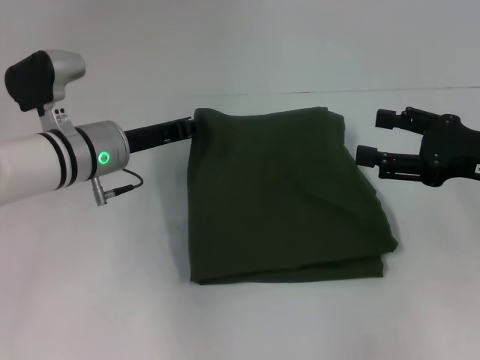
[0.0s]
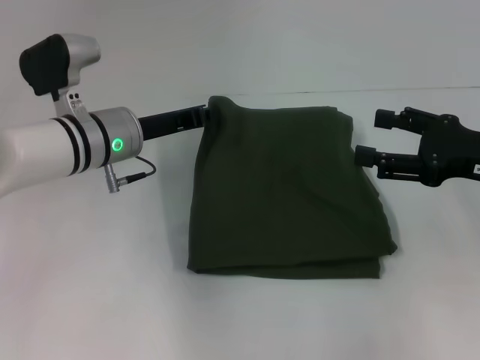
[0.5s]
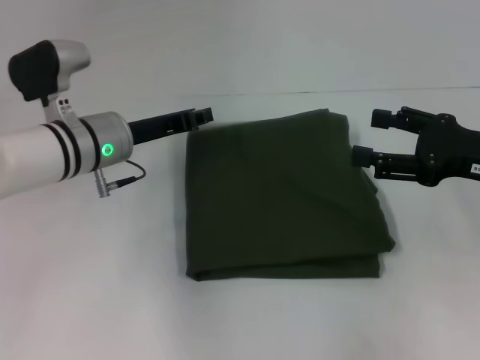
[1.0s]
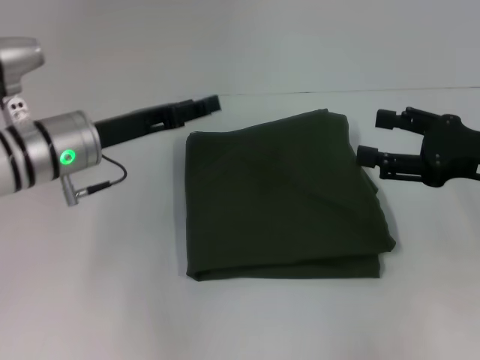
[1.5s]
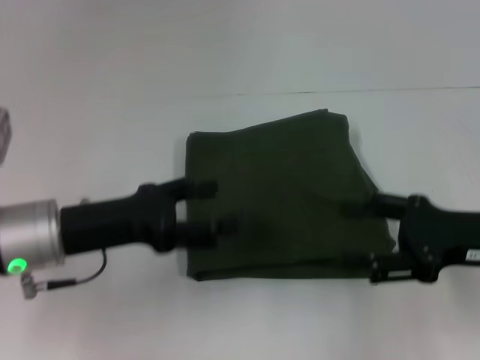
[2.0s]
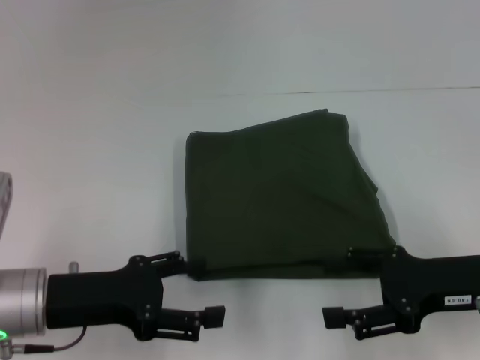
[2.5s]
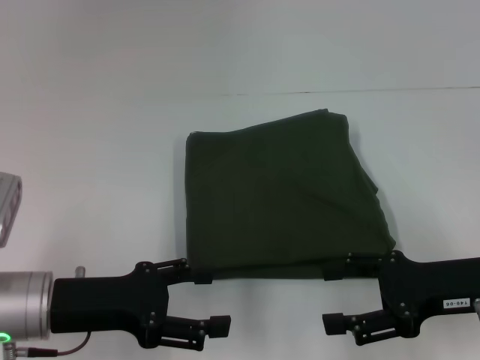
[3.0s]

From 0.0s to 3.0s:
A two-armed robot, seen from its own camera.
From 0.0s to 1.5s: The left gripper opens up.
From 1.5s to 3.0s: The left gripper goes some 10 cm backward, and opens its fingers; the right gripper travels downward by roughly 5 cm.

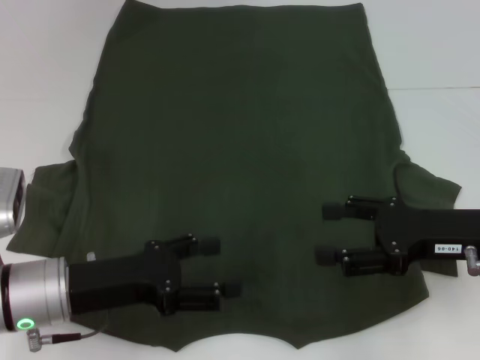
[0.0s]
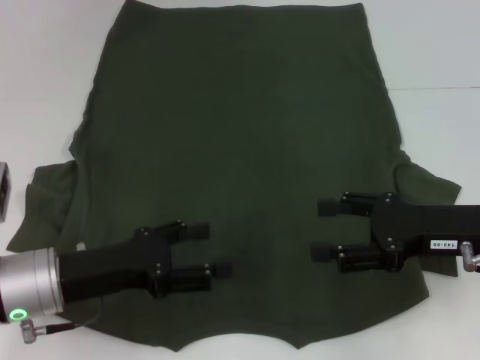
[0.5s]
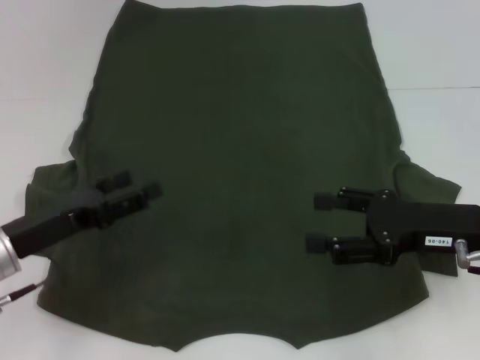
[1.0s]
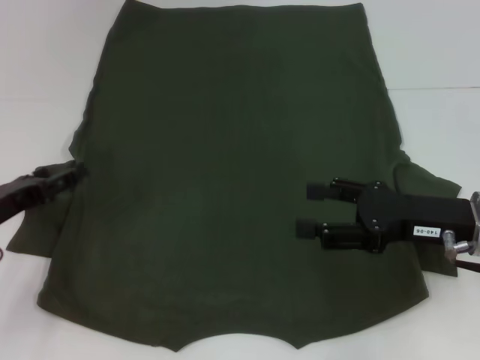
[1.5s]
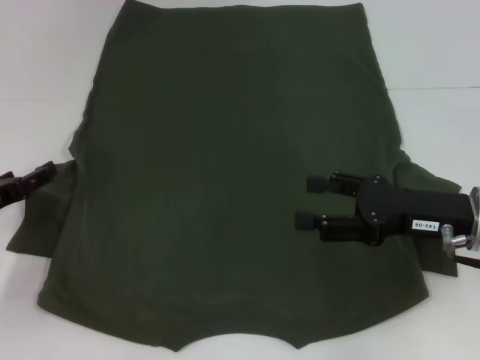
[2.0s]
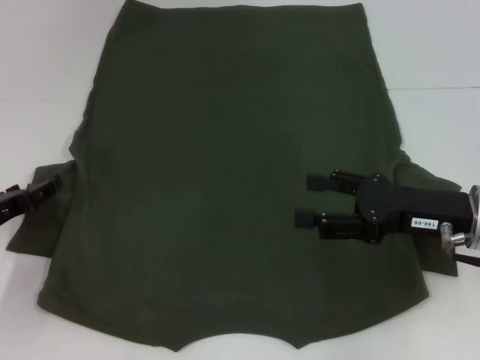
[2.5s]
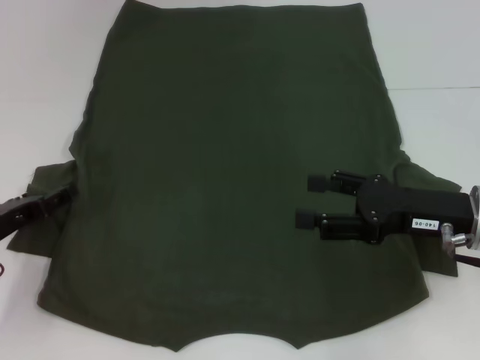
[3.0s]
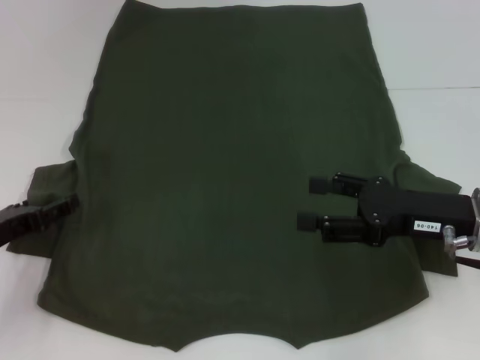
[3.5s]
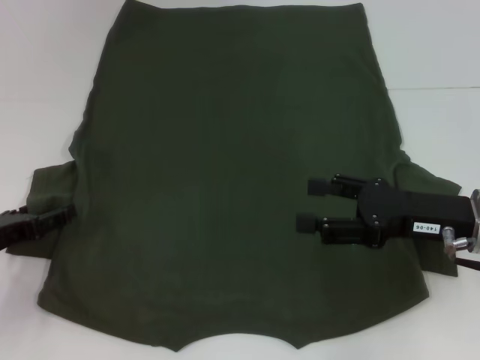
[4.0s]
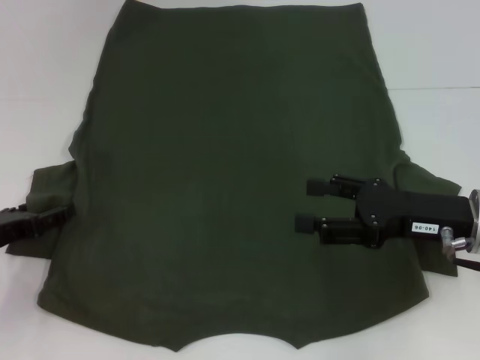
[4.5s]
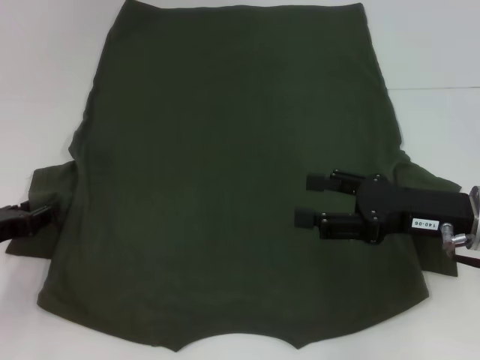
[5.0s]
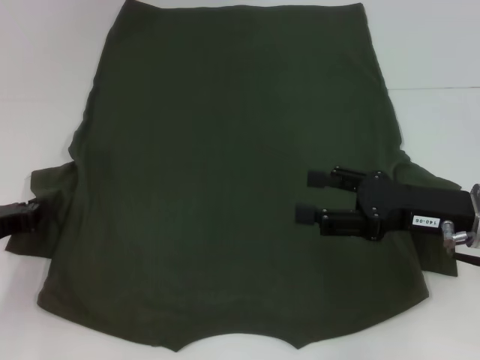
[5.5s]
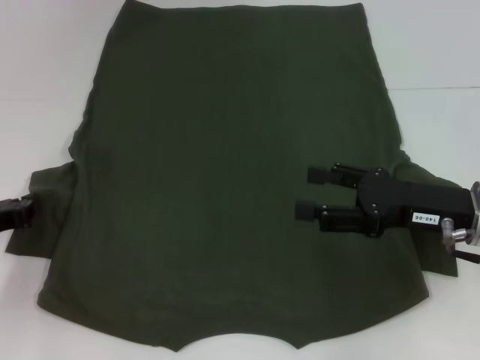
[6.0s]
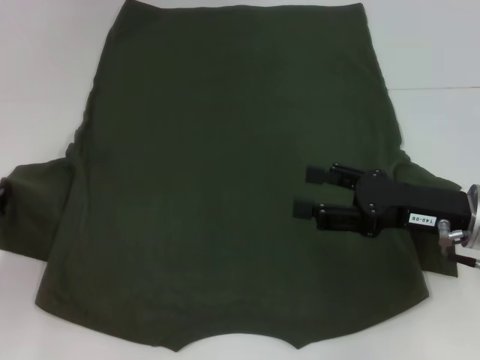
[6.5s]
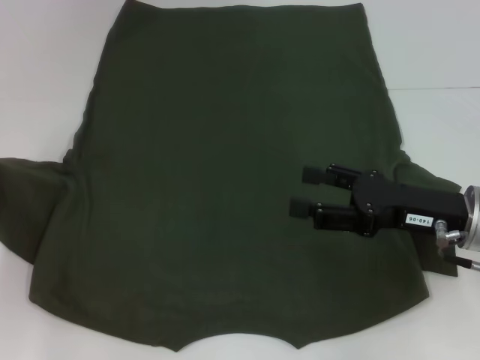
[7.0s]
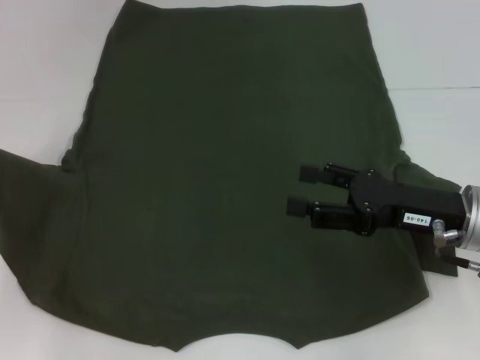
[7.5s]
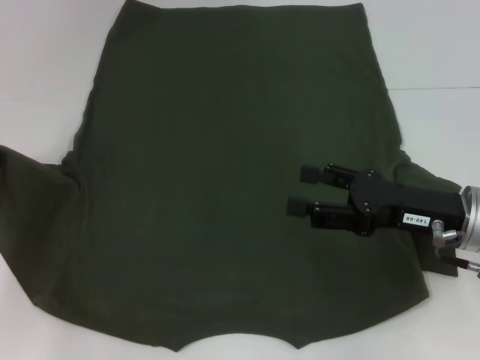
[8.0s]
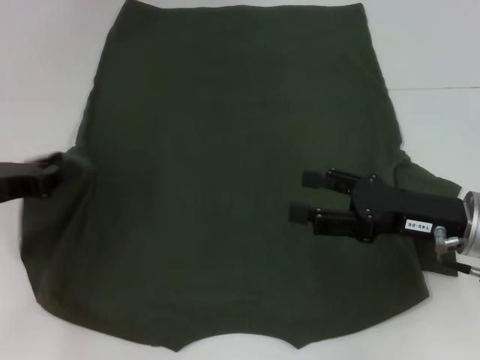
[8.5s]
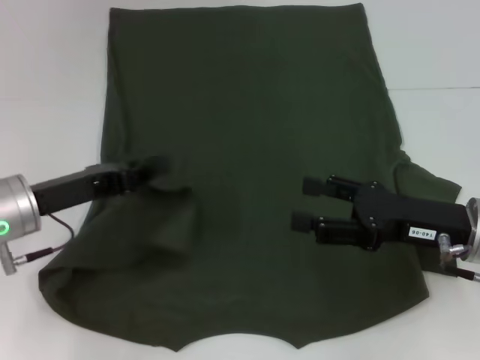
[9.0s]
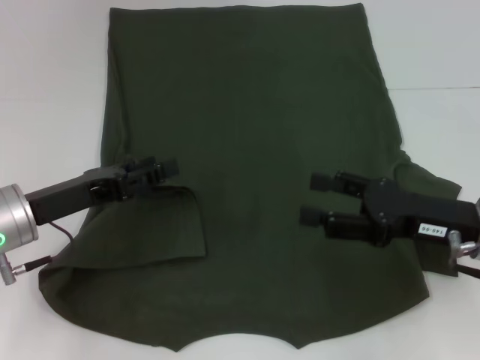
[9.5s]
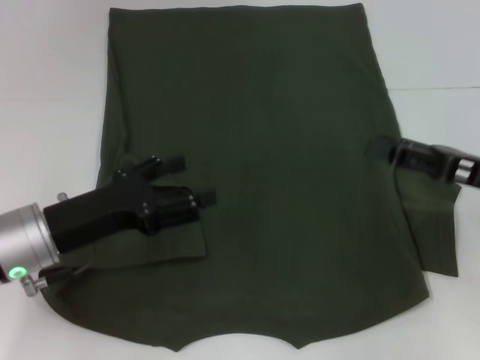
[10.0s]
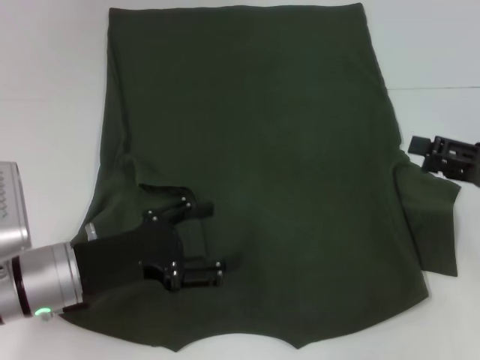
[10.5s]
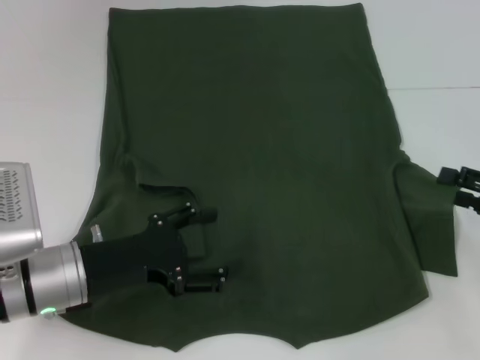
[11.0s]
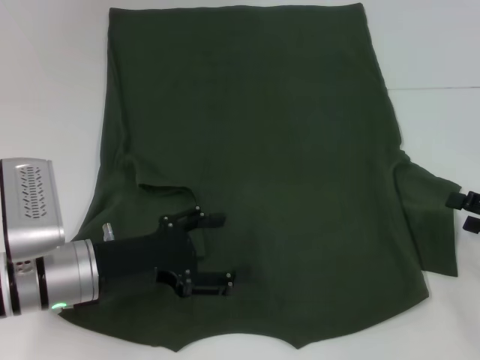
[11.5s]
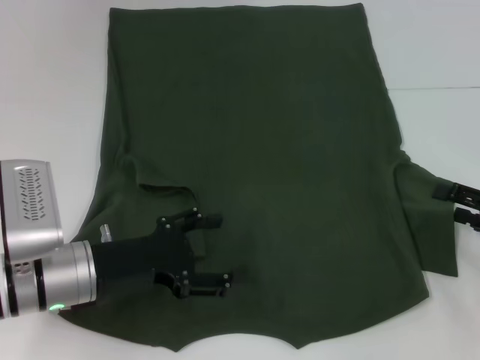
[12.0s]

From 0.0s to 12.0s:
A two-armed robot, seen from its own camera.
Step, from 0.0s to 9.0s: Fold the bottom left sleeve with your left hand.
From 0.0s to 2.0s: The left gripper travels to the left and forward by about 15 cm.
From 2.0s to 4.0s: The grippers move only a little.
From 4.0s to 6.0s: The left gripper closes.
From 6.0s to 8.0s: The left gripper shifts by roughly 5 cm.
From 8.0s to 10.0s: The right gripper heads to the right, covering some 5 cm, while the left gripper travels to the right by some 15 cm, and opens up.
From 10.0s to 12.0s: The right gripper goes some 10 cm to the right and downward.

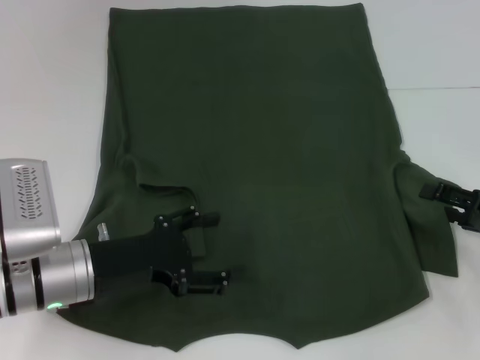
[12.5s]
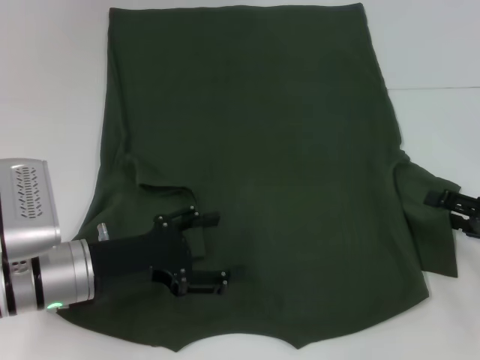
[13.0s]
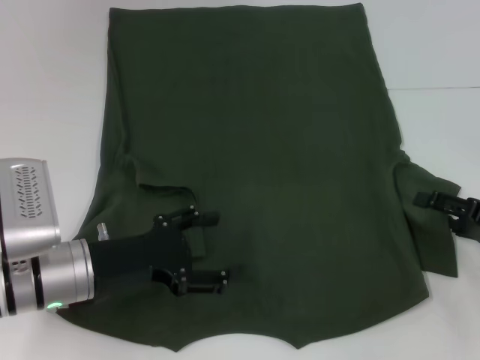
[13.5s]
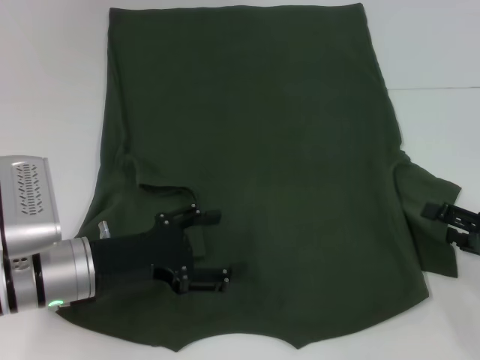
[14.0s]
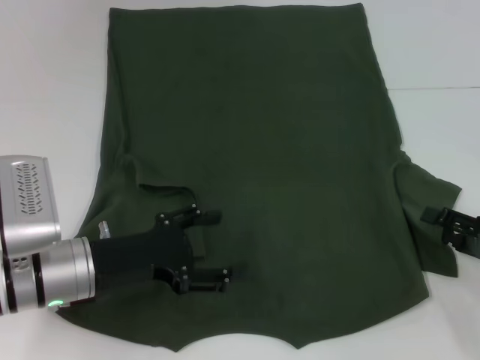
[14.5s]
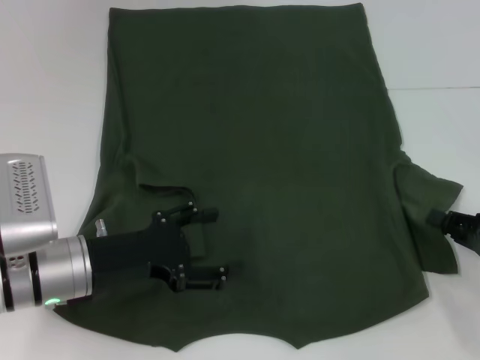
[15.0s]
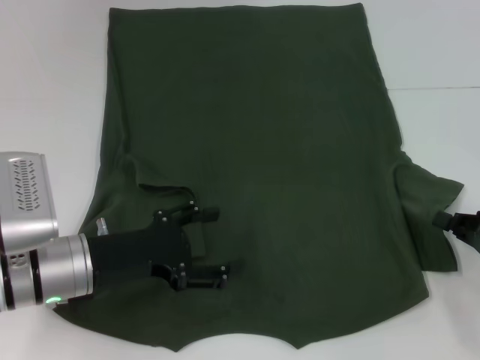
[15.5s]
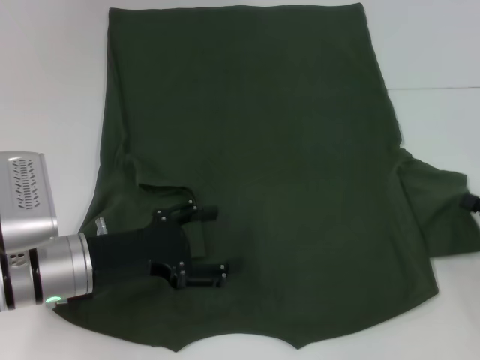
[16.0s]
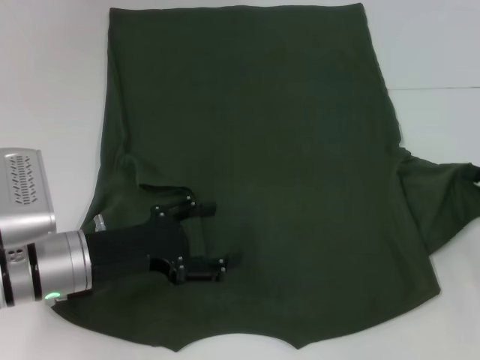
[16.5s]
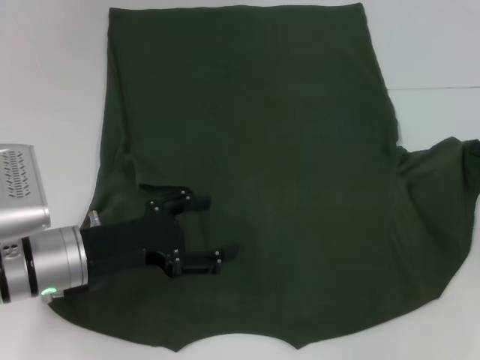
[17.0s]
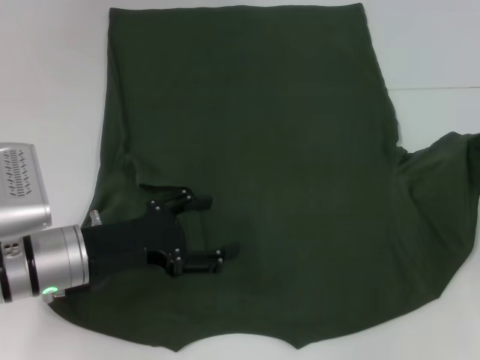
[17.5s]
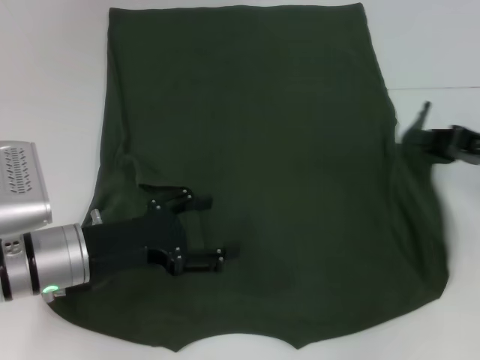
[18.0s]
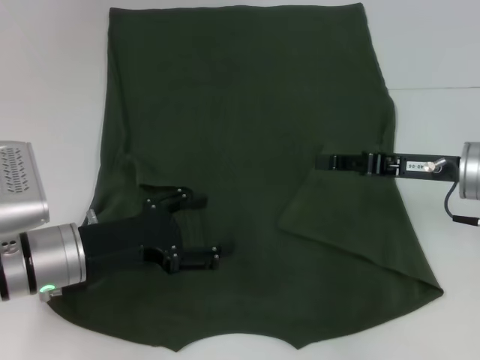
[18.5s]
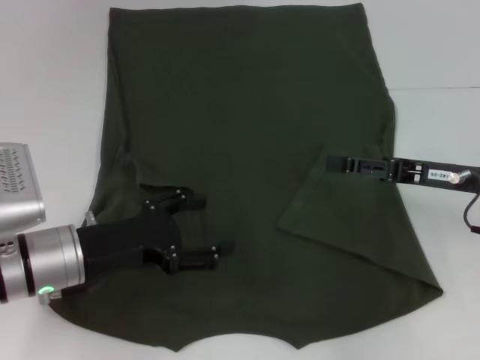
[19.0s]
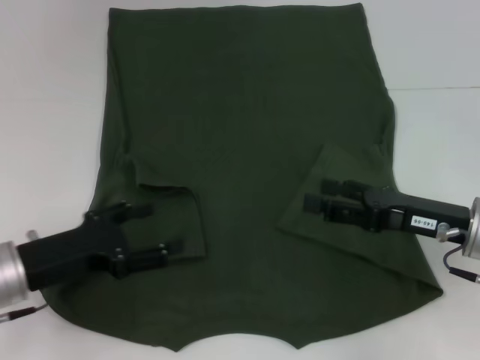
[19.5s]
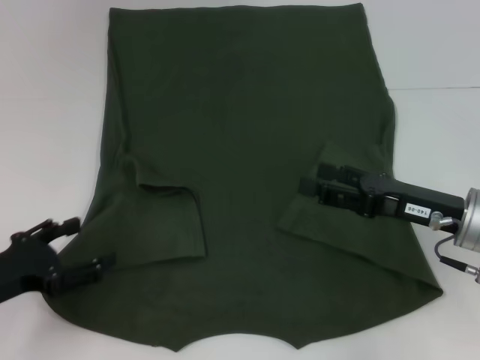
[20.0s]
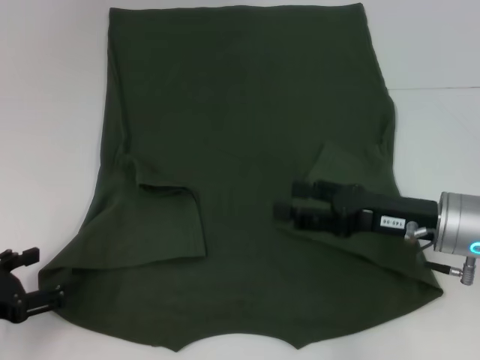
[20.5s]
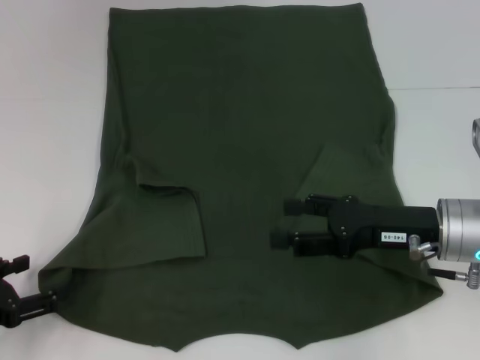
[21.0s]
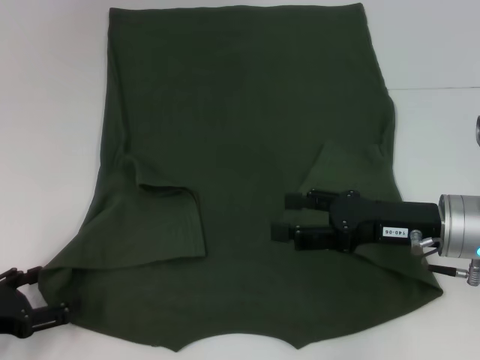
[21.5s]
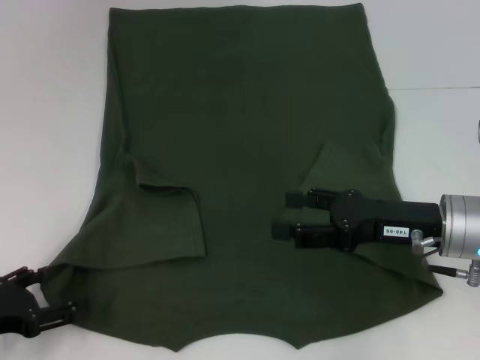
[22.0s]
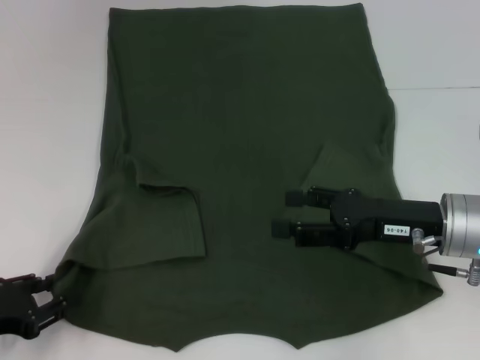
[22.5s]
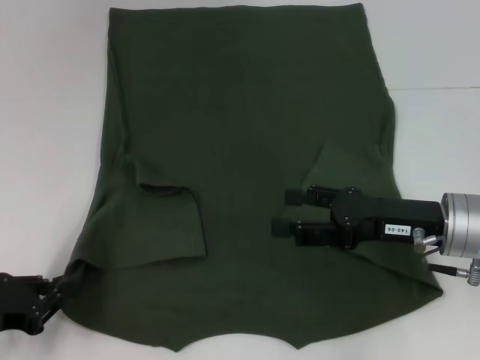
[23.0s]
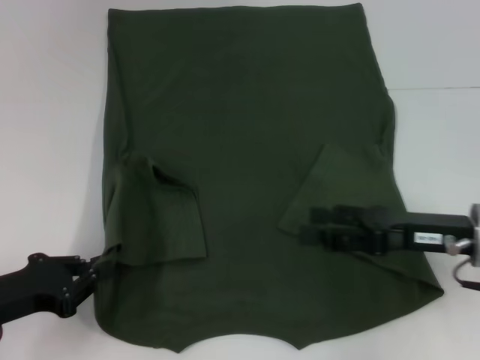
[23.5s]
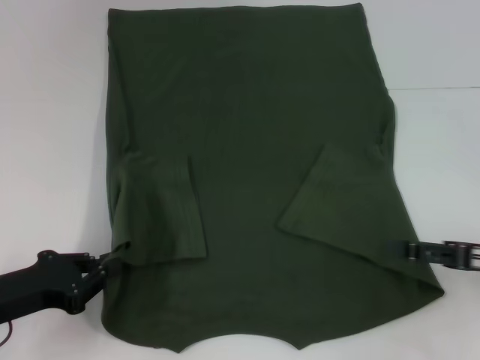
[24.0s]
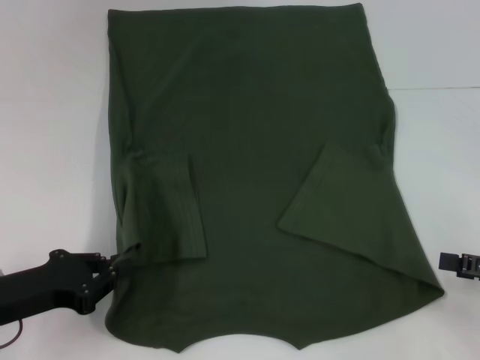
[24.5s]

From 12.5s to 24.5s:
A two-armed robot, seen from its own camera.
Step, from 12.5s to 18.5s: Fold the bottom right sleeve with your right hand.
Step, from 19.0s to 22.5s: Grab the bottom left corner with your left hand.
From 12.5s to 14.5s: The grippers make only small movements.
From 14.5s to 16.5s: The right gripper shifts by approximately 5 cm, and closes its fingers.
From 16.5s to 18.5s: The right gripper travels to the left by some 10 cm.
From 18.5s to 20.5s: The right gripper ends up some 5 cm from where it was, and opens, while the left gripper heads to the left and backward, covering some 15 cm.
From 20.5s to 22.5s: The left gripper closes up.
From 22.5s to 24.5s: The right gripper heads to the right and backward, covering about 15 cm; the left gripper moves about 5 cm, and closes up.
